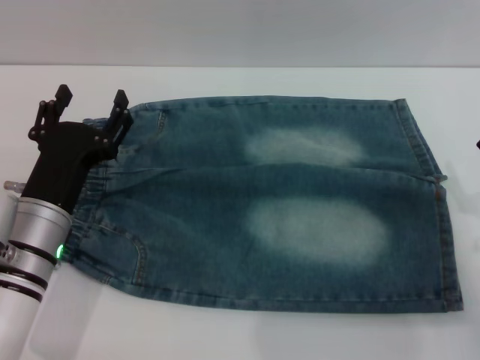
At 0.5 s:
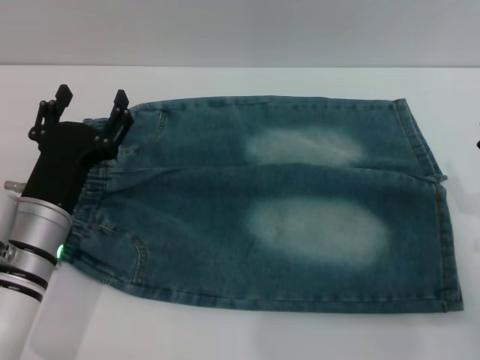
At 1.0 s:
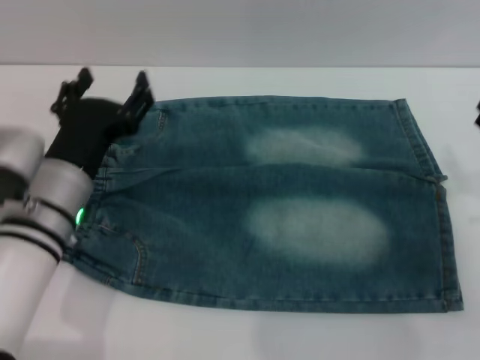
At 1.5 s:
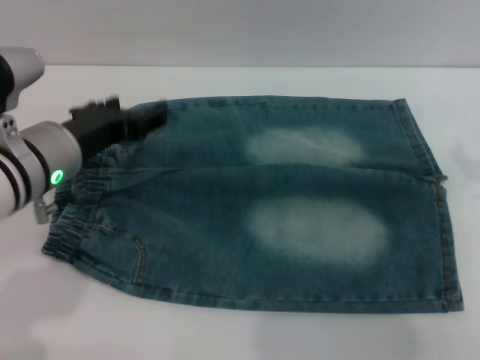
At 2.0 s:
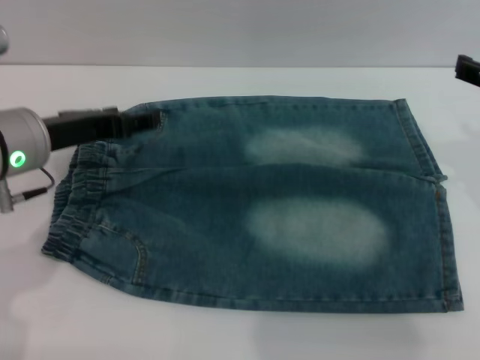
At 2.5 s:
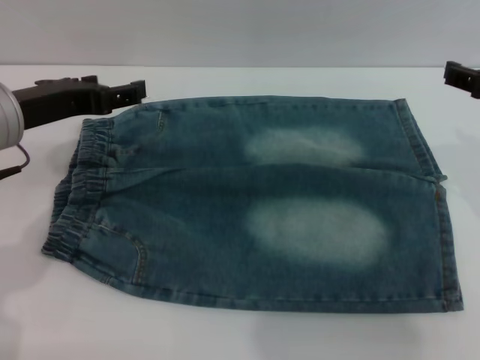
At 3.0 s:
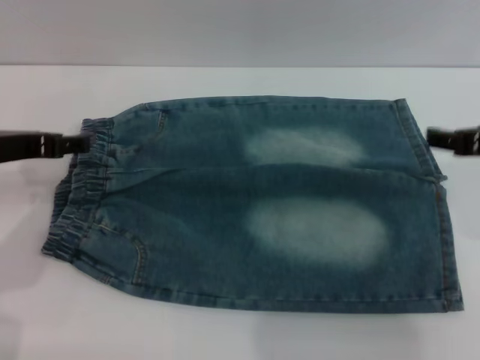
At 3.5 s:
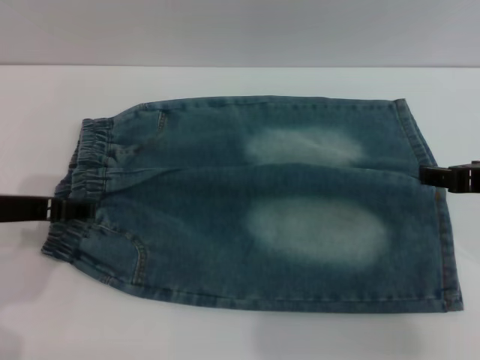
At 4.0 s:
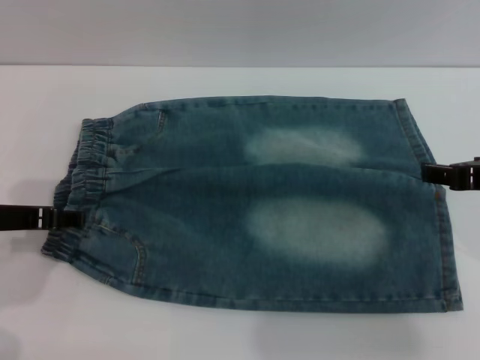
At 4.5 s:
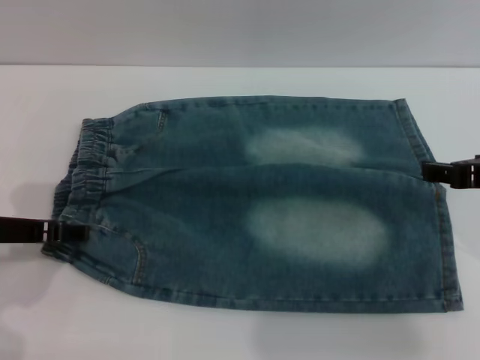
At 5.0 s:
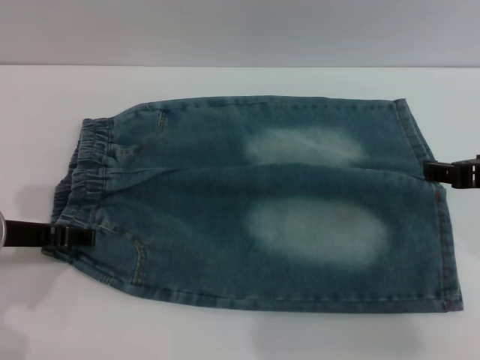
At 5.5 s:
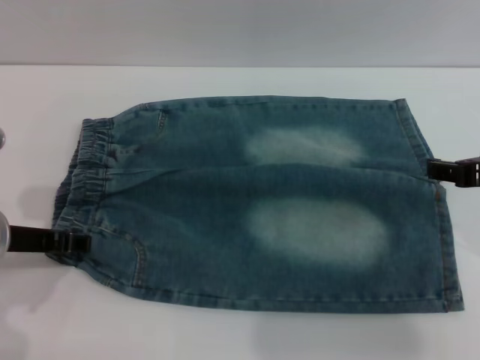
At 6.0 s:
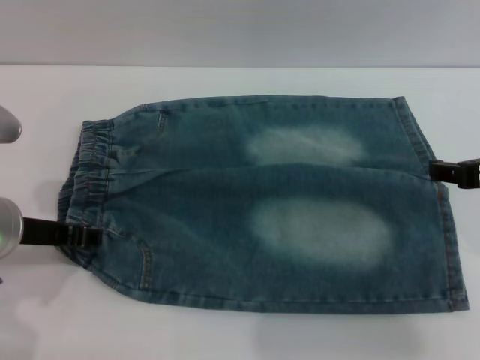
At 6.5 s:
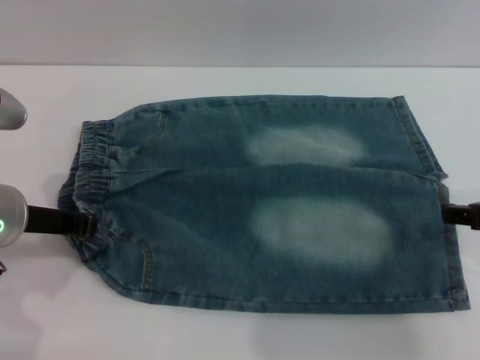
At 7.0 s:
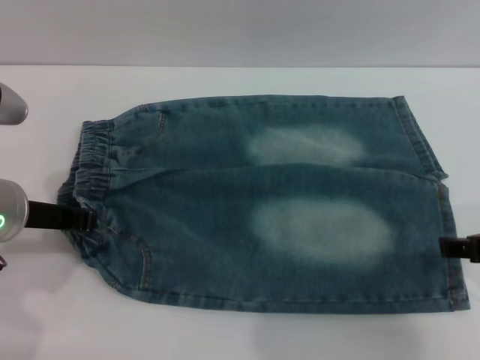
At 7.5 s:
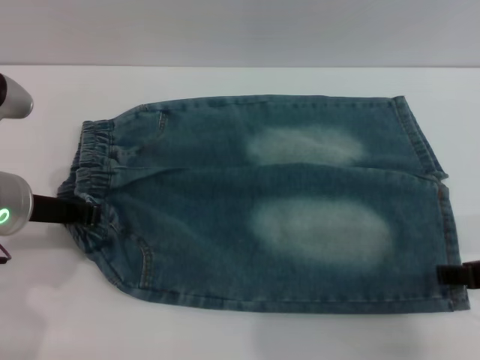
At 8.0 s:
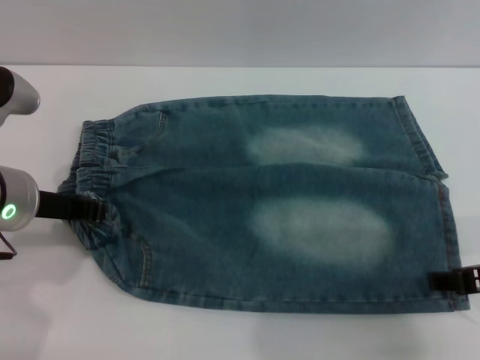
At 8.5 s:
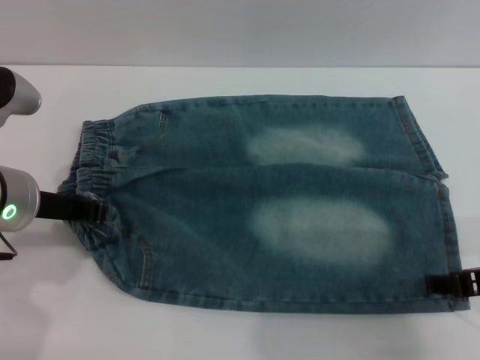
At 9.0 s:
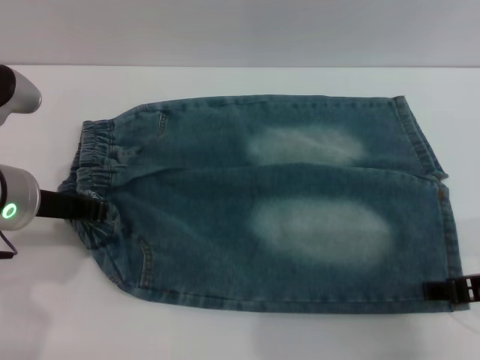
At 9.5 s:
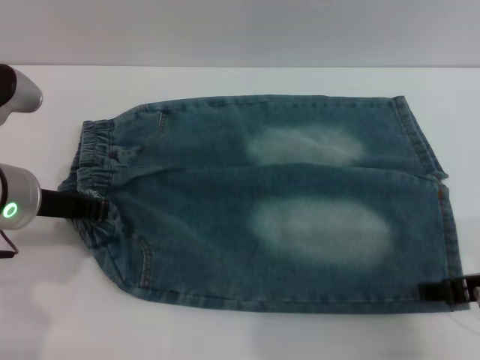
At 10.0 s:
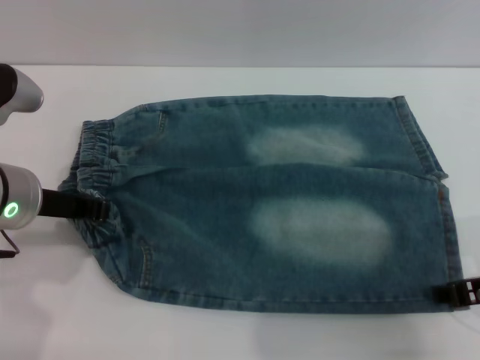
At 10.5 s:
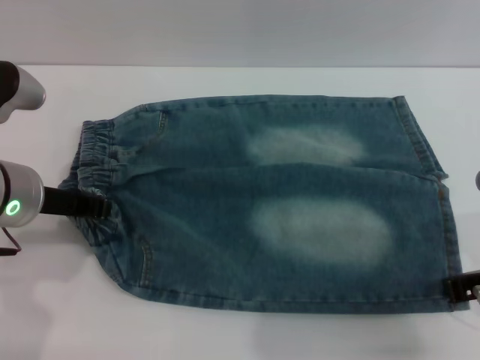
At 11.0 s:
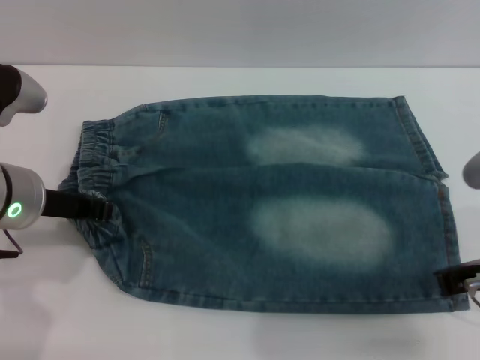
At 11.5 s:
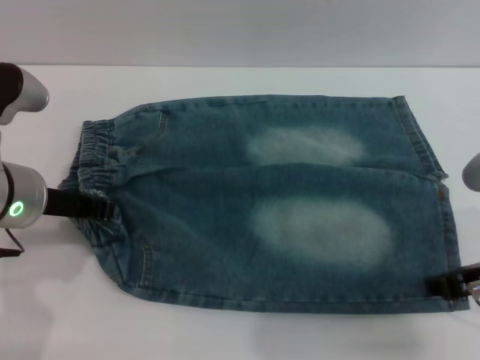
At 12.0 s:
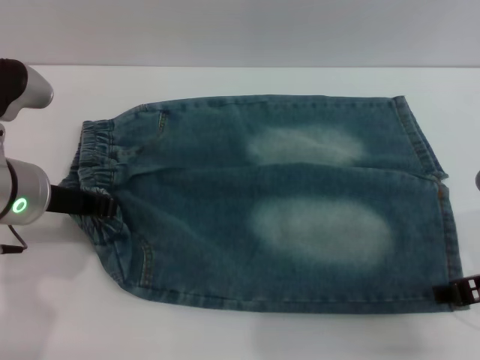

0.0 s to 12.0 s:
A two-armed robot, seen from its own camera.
0.0 to 2.0 s: The two grippers go about 15 cm upward and forward.
2.0 to 4.0 s: The left gripper ends up some 5 cm from where it was.
4.0 to 6.0 s: The left gripper closes its fingers.
6.0 to 8.0 s: The right gripper shifts by approximately 5 cm, while the left gripper closes up.
8.0 to 10.0 s: There are only small adjustments of the grippers.

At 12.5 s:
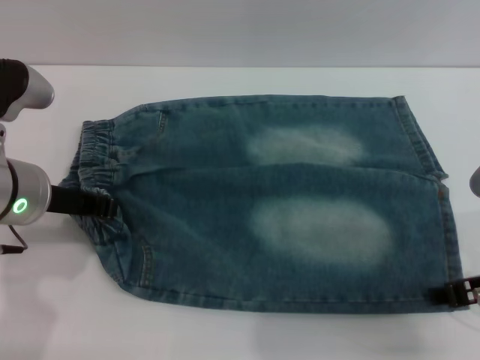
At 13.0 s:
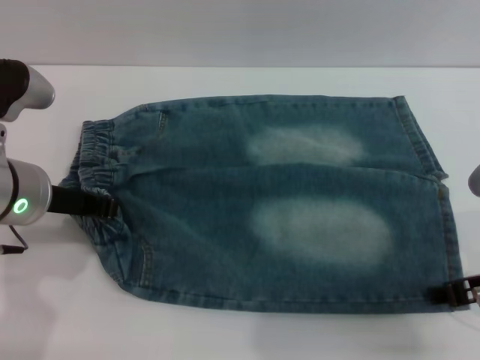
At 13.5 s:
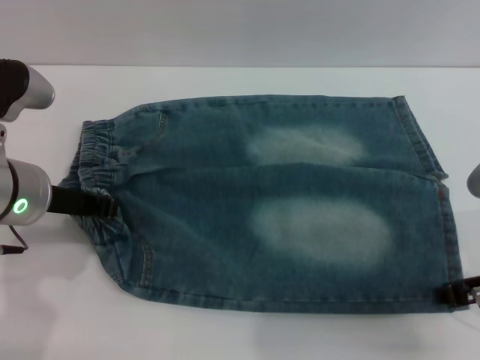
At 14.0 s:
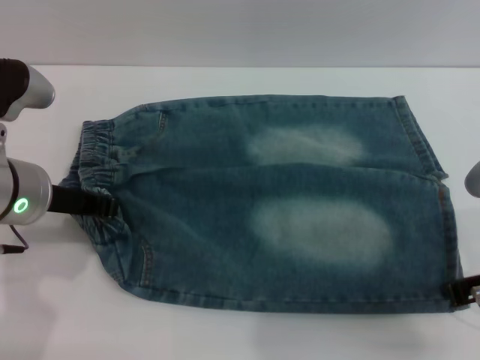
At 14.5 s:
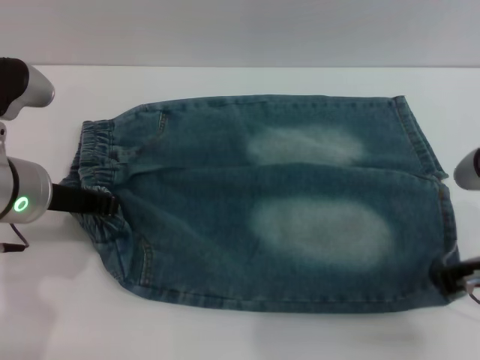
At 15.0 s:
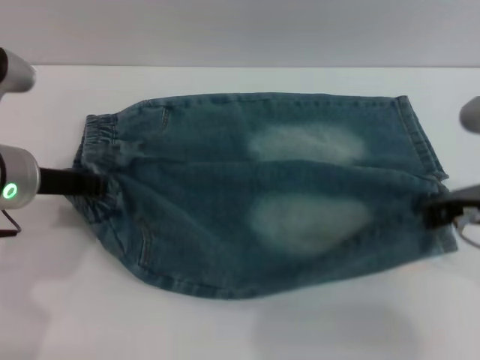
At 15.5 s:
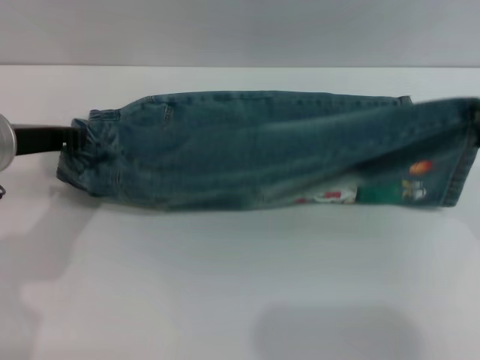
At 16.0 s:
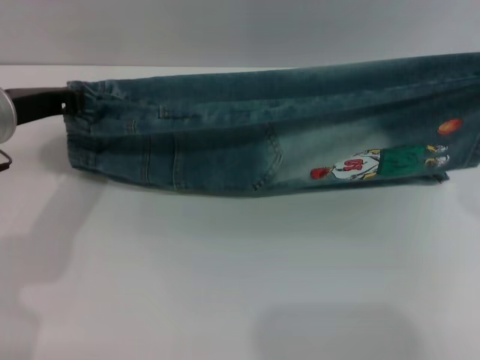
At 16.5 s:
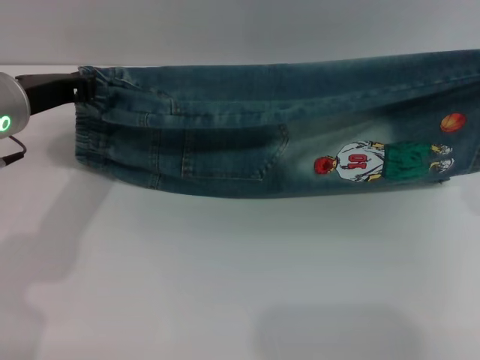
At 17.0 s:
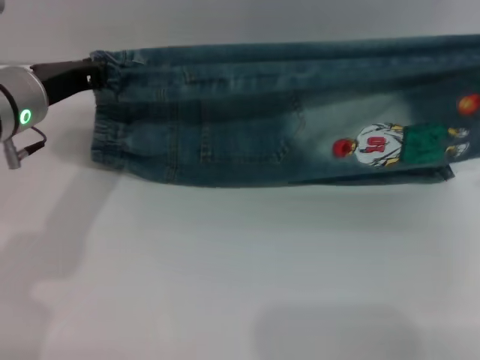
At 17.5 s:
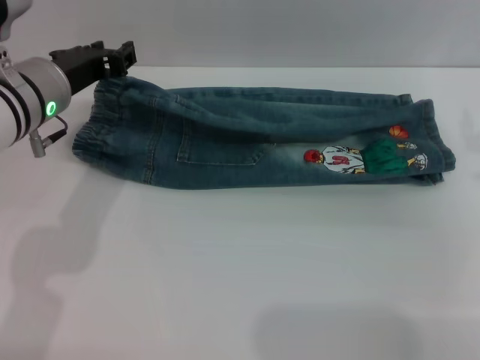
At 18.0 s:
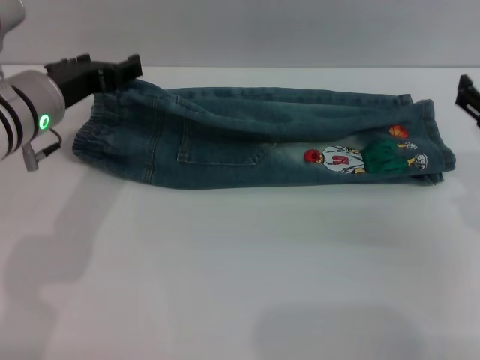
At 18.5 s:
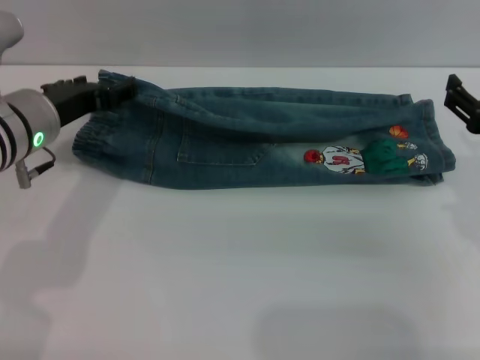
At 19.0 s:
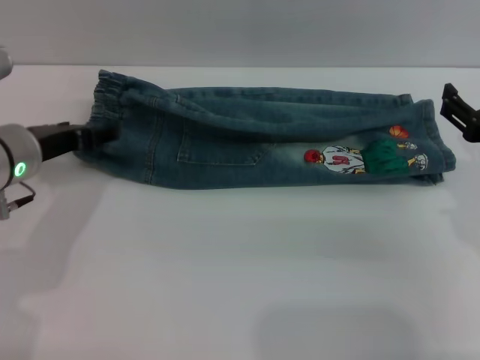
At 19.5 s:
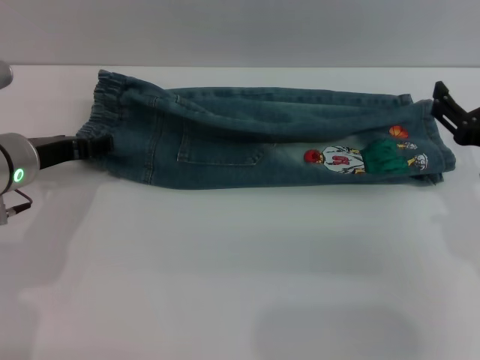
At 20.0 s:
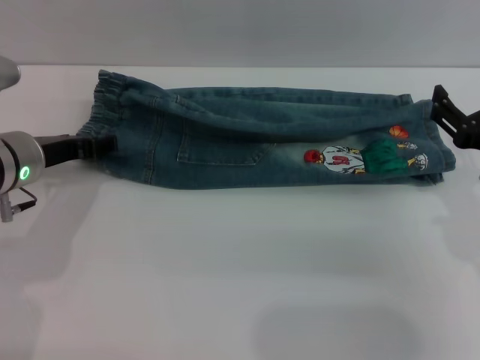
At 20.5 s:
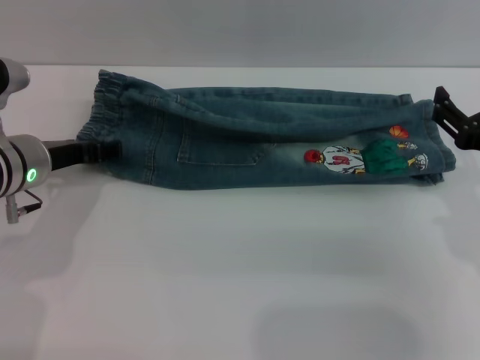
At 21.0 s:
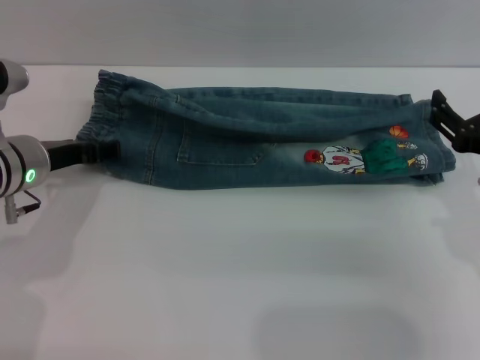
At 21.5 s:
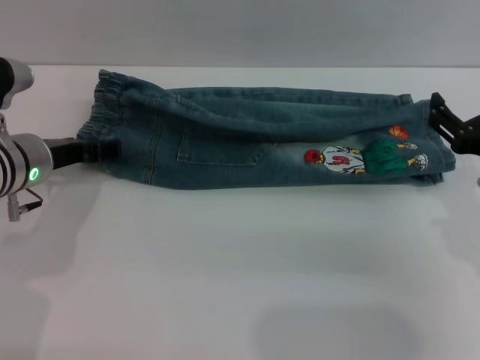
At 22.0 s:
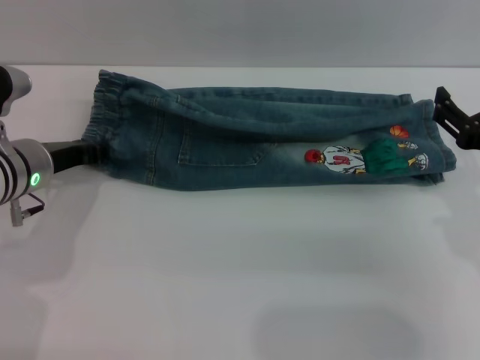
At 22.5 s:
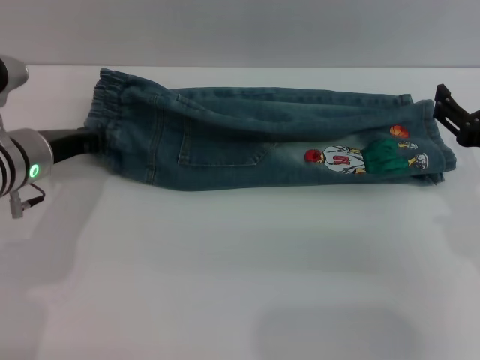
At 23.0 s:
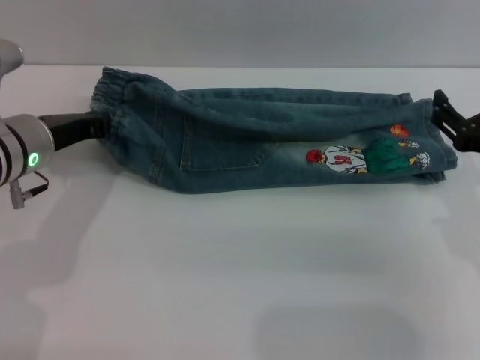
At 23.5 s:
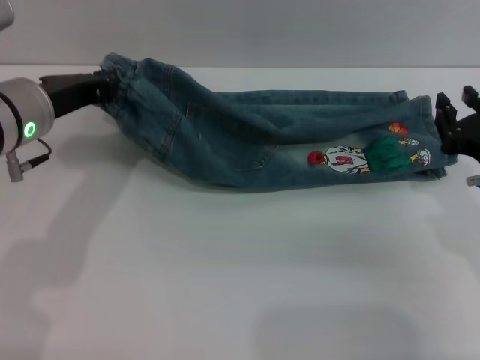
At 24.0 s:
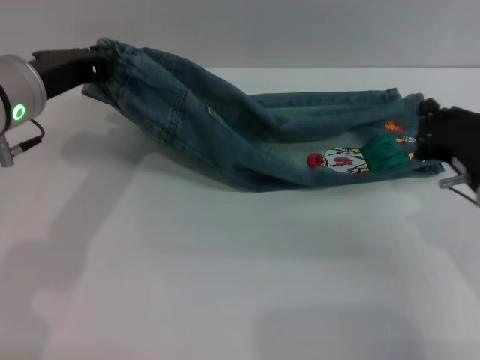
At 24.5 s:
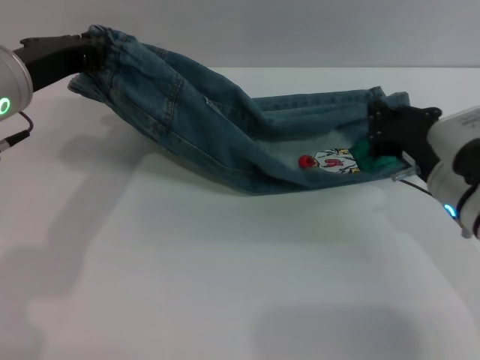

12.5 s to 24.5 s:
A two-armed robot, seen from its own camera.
Step, 12.5 to 19.0 s: Fold the bottom of the pants upward with both grippers.
12.5 to 14.5 s: The right gripper closes up.
14.5 to 16.5 s: The right gripper is displaced to the right and upward by approximately 5 cm.
16.5 to 18.5 s: The left gripper opens up, while the right gripper shifts about 5 cm downward, and opens up.
18.5 to 20.5 s: The left gripper moves some 5 cm.
20.5 to 22.5 s: The left gripper closes.
22.5 to 24.5 s: The right gripper moves forward, approximately 5 cm, and closes up. Meanwhile the left gripper heads upward, covering about 10 cm.

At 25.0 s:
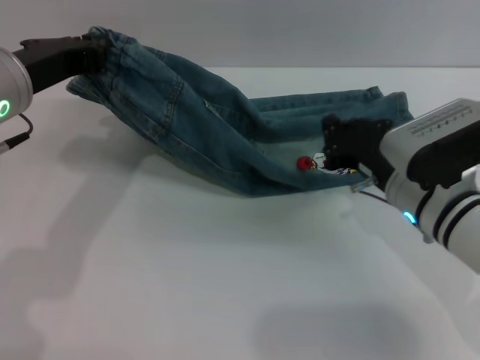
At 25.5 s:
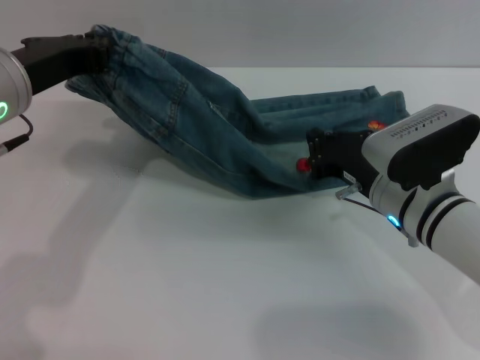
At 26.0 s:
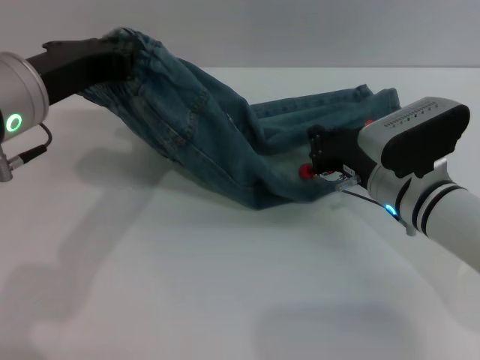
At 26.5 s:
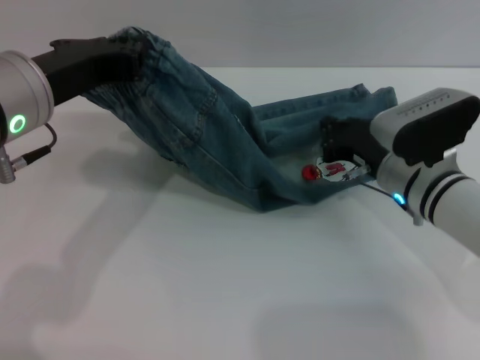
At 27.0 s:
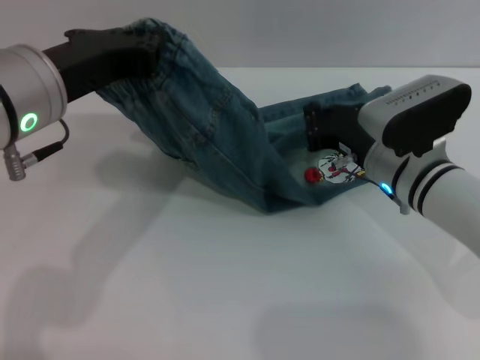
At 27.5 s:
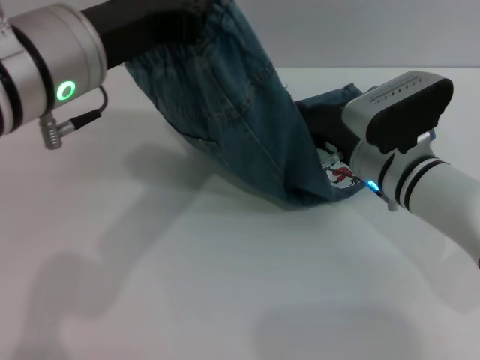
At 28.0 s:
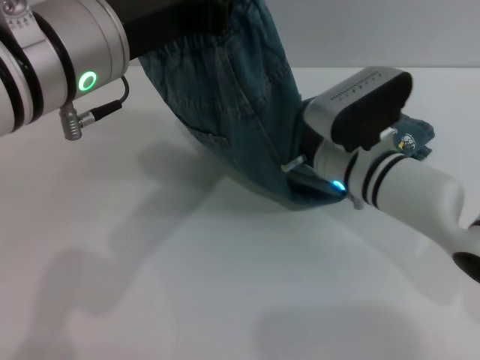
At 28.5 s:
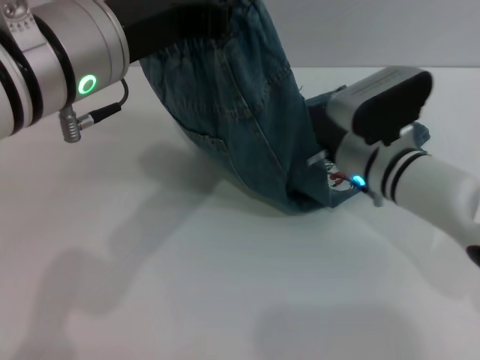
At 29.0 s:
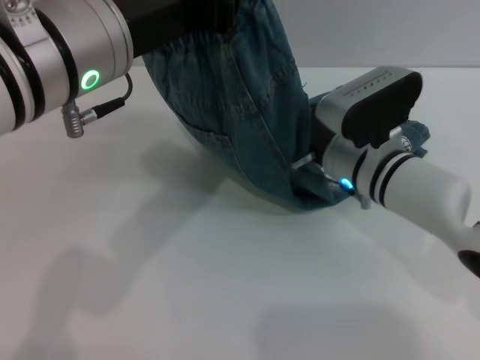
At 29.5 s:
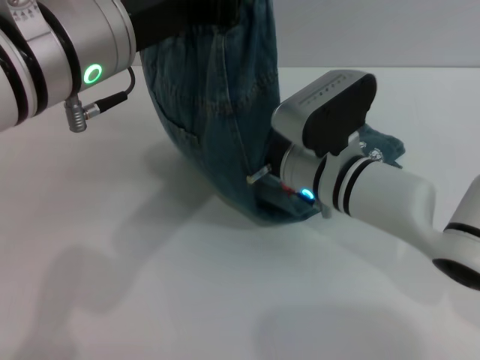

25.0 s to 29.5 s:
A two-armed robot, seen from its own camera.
25.0 to 27.0 s: The left gripper moves approximately 5 cm.
27.0 to 29.5 s: The right gripper moves to the left, about 10 cm; the left gripper ends up roughly 5 cm from where it was.
